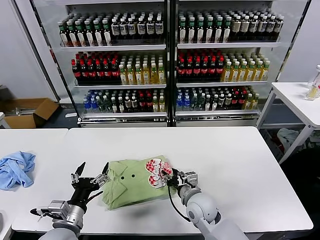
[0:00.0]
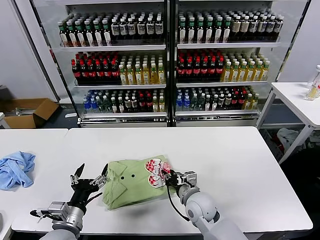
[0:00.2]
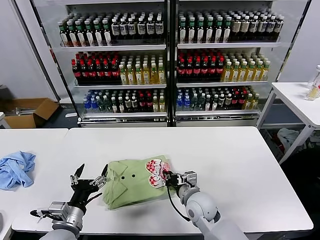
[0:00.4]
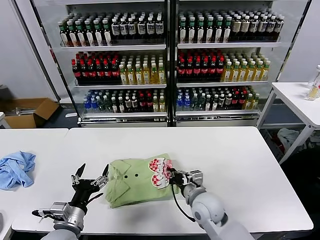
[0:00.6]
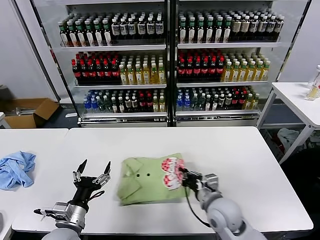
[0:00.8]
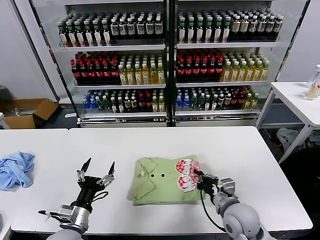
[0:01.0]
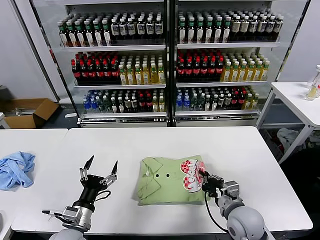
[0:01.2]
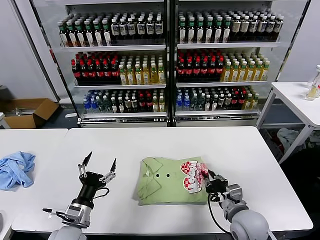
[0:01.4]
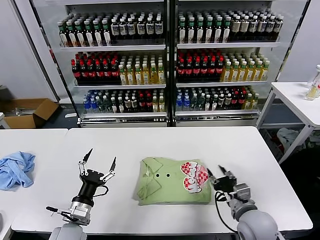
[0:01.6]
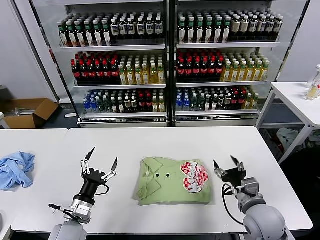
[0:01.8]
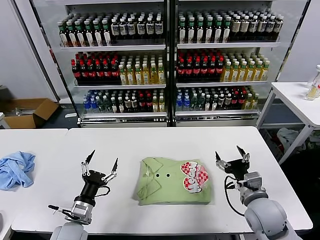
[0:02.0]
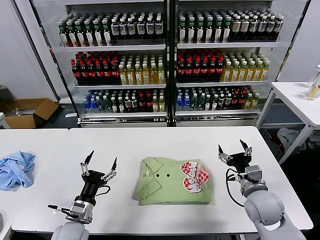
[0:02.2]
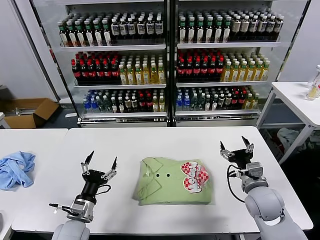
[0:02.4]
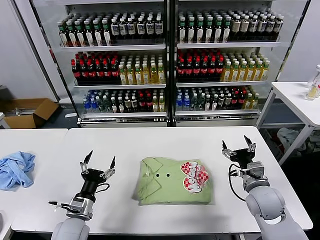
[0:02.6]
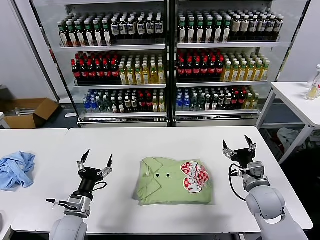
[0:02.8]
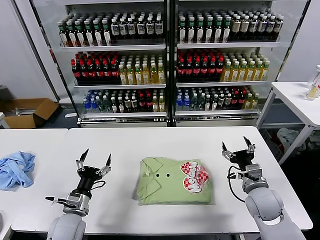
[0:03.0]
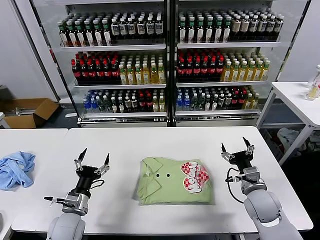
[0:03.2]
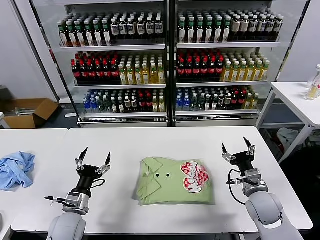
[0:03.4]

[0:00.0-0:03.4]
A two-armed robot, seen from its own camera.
Task of the whole recording: fold and organize the clothes.
Step, 0:00.0 to 0:01.6: Drag the clothes to the center of the table.
0:00.0 to 0:01.6: The right gripper goes roughly 15 cm to the right and backward, and closes, then reopens.
0:01.6 to 0:03.4: The right gripper goes roughly 10 cm forward and to the right, and opens.

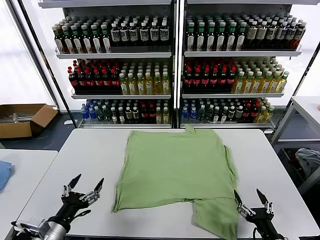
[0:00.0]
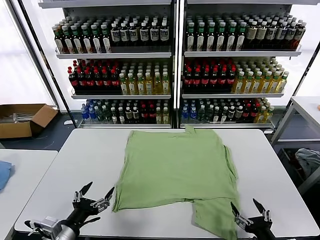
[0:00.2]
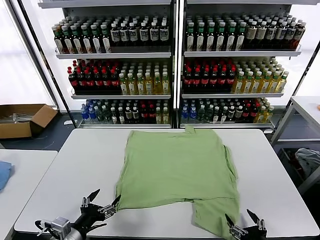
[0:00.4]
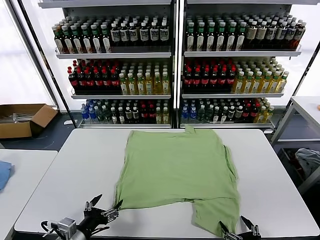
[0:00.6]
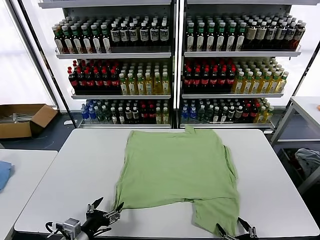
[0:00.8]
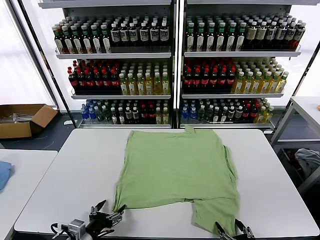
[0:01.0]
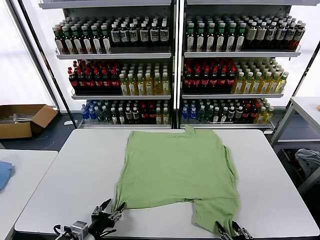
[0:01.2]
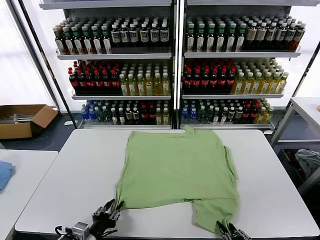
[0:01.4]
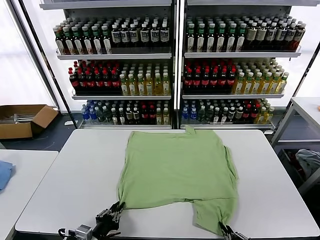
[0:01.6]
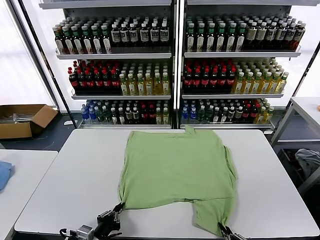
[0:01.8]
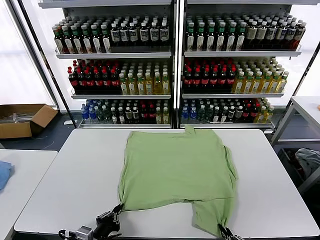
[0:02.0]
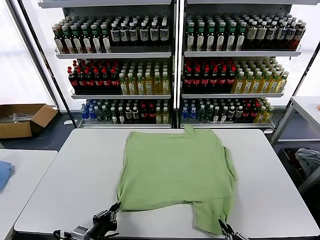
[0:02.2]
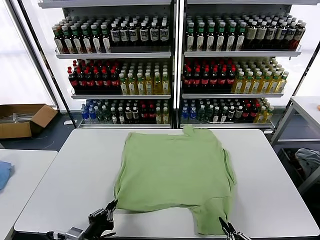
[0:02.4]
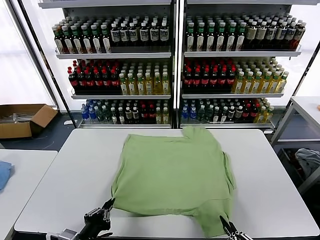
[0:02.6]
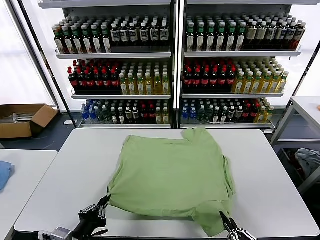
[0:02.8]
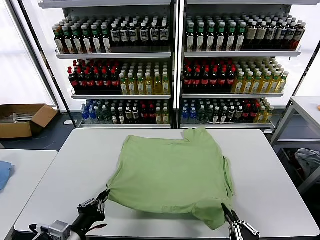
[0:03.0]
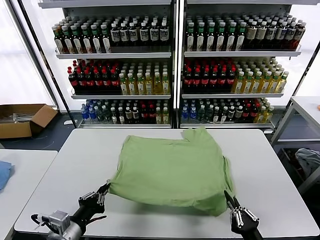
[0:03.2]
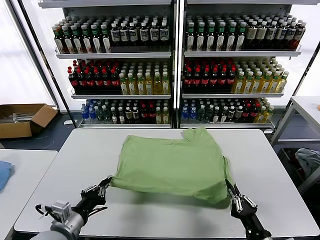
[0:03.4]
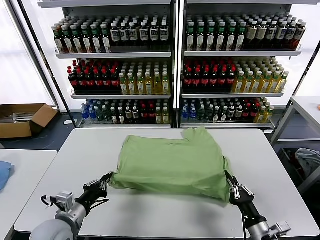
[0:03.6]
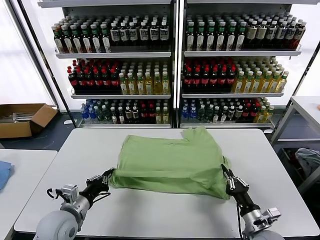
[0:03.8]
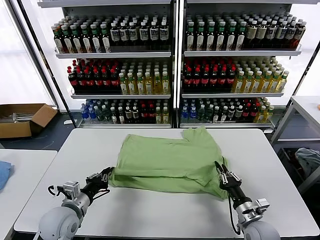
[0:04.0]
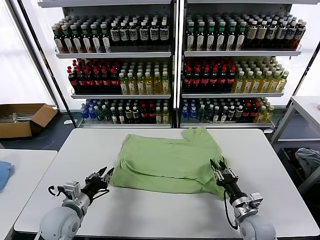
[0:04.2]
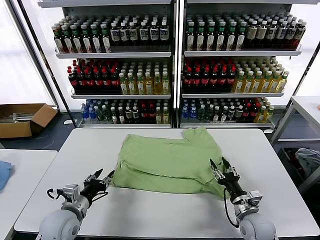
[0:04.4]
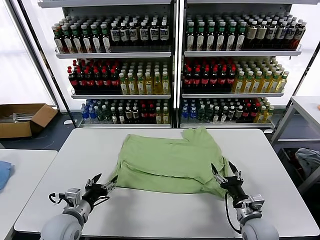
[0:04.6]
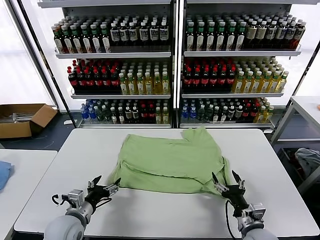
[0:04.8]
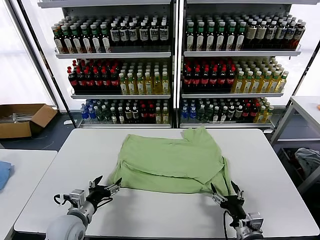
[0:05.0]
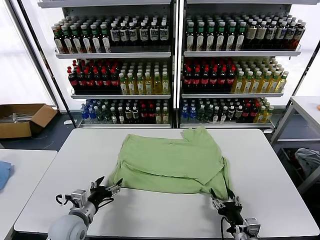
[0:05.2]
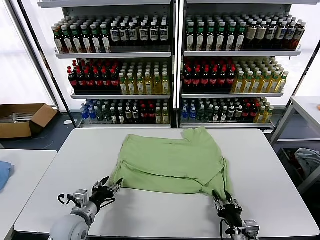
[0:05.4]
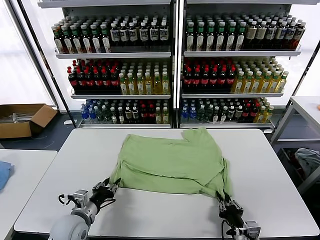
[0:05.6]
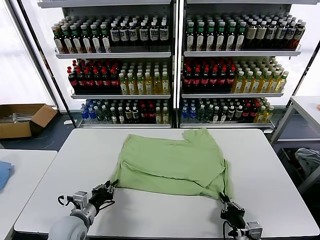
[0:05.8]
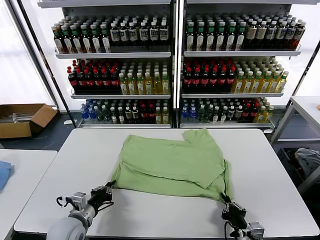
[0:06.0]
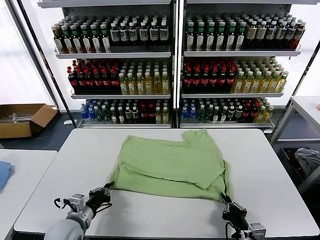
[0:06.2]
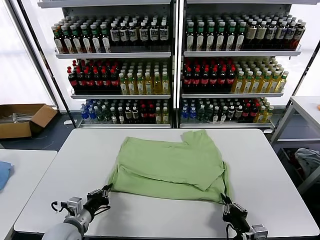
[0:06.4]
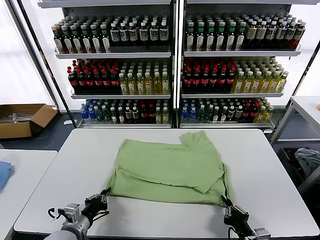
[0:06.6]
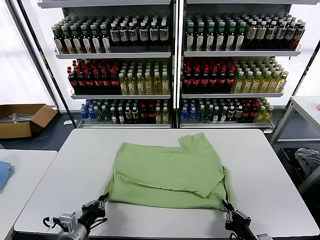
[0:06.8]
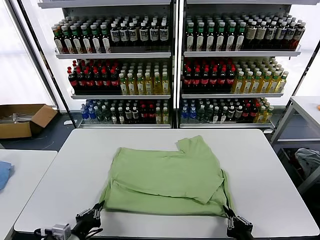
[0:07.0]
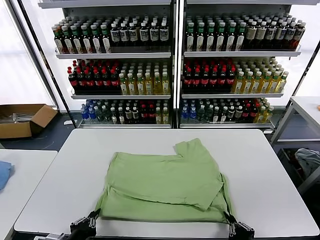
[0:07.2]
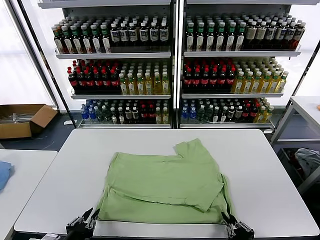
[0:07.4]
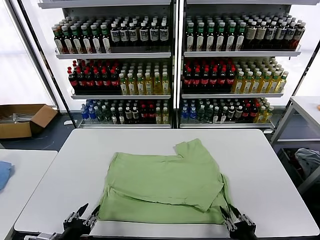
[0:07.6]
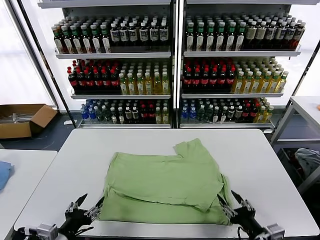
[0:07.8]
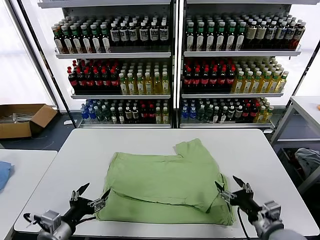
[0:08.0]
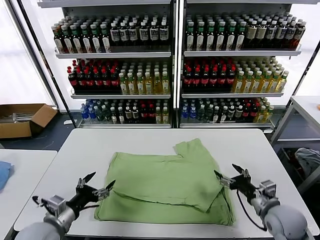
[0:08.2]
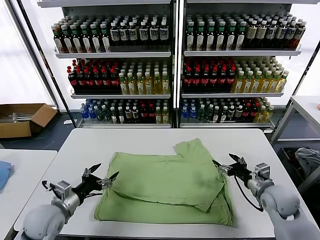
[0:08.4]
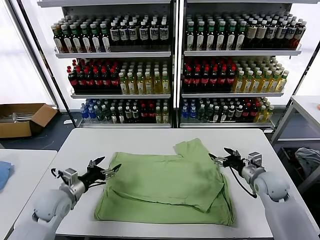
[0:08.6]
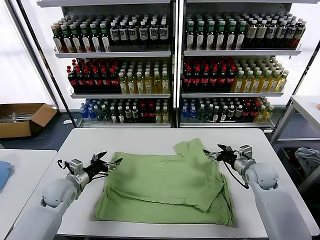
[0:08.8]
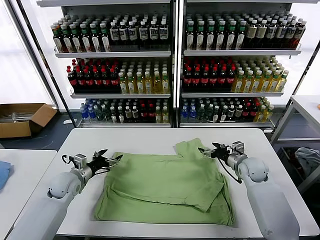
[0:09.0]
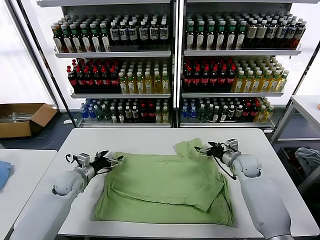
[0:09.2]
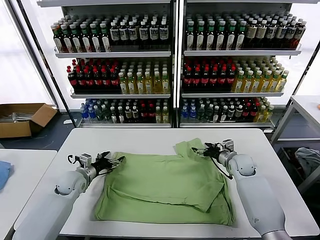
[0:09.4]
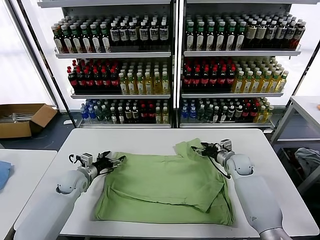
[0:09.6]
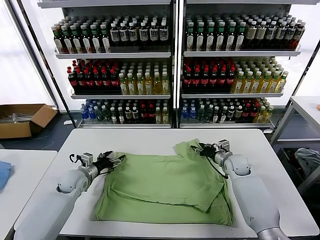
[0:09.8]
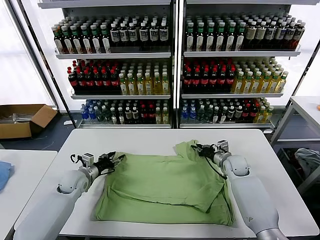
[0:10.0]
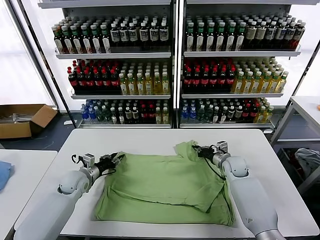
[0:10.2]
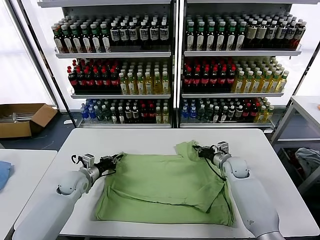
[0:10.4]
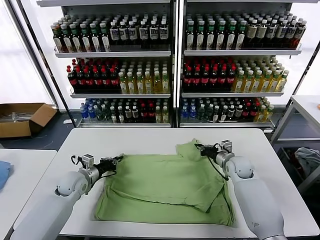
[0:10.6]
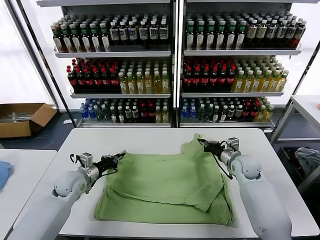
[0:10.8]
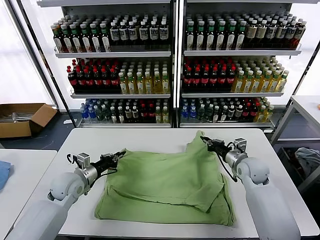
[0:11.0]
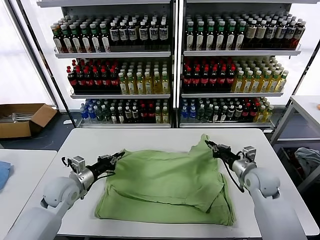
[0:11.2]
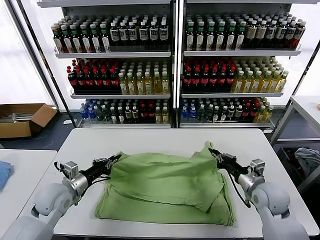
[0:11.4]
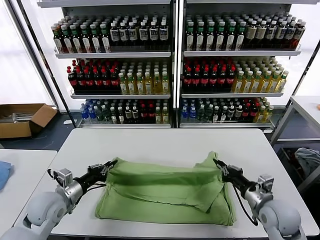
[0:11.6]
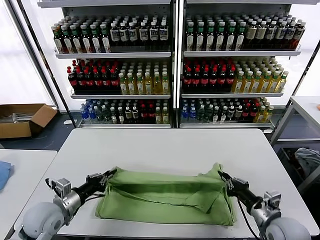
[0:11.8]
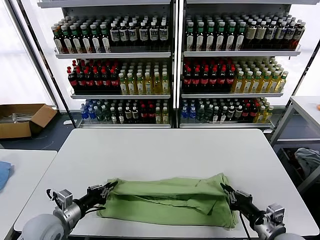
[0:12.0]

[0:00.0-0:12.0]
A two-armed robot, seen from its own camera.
Task of the whole recording: fold and organize the clothes.
Step, 0:00.0 to 0:01.6: use both grippers simultaneously to clamp the lower edge of the clothing fabric.
Step, 0:01.8 to 0:04.4: use both grippers to drag the lower edge of the fabric forward and fold it over the upper edge.
Step, 0:04.6 to 0:07.6: Drag the clothes downward with both gripper.
Step, 0:07.8 to 0:10.4: use both grippers simultaneously to clamp the upper edge of the clothing fabric.
0:01.6 to 0:03.0: The left gripper travels upward by approximately 10 cm.
0:03.0 to 0:04.4: The right gripper heads forward, covering approximately 20 cm, and opens its fingers. Meanwhile the left gripper travels forward by about 10 cm, and opens.
0:04.4 to 0:06.0: The left gripper closes up. The right gripper shifts some 10 cm backward, and closes its fingers.
0:06.0 to 0:07.6: The left gripper is displaced backward and upward by approximately 15 cm, and opens; the right gripper moves upward, some 5 cm, and opens.
0:07.6 to 0:09.0: The grippers both shift forward by about 30 cm. The left gripper opens up. The right gripper opens.
0:09.0 to 0:10.4: The right gripper closes its fingers. Meanwhile the left gripper closes up.
0:10.4 to 0:12.0: The left gripper heads backward, covering roughly 20 cm. The right gripper goes some 30 cm backward.

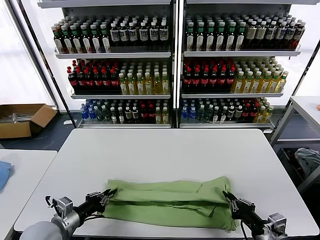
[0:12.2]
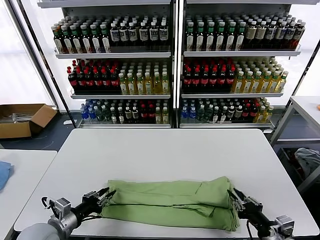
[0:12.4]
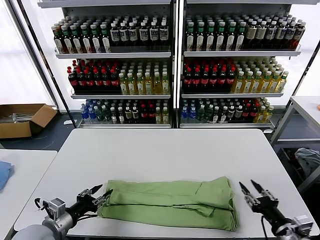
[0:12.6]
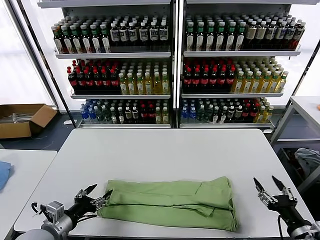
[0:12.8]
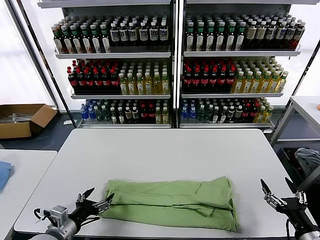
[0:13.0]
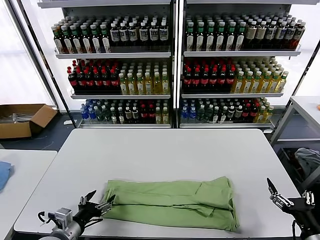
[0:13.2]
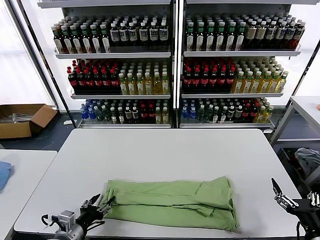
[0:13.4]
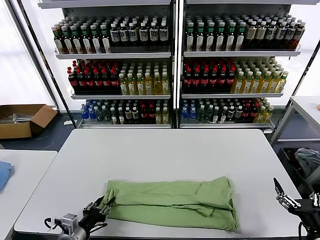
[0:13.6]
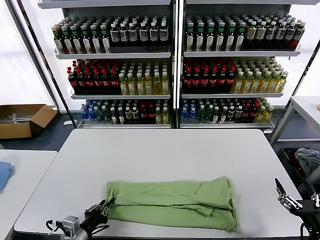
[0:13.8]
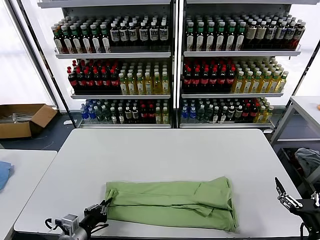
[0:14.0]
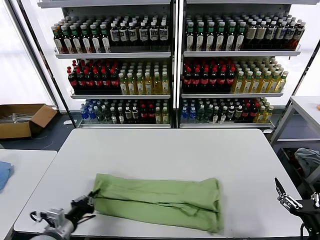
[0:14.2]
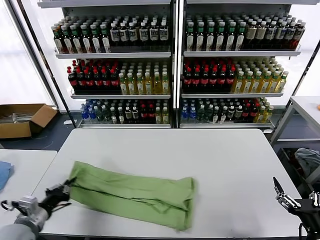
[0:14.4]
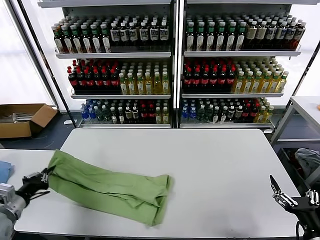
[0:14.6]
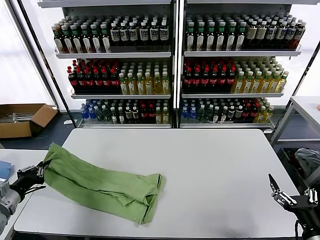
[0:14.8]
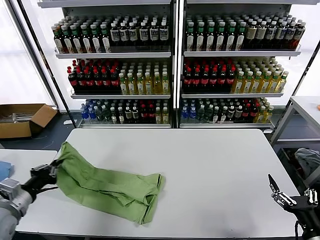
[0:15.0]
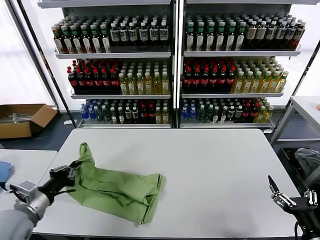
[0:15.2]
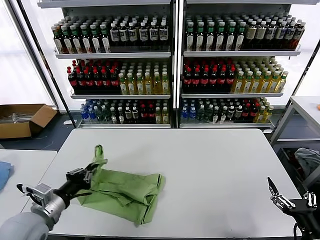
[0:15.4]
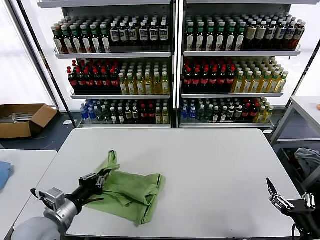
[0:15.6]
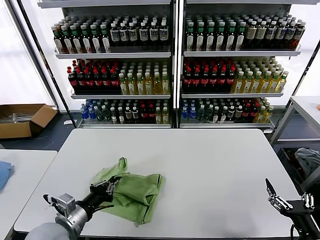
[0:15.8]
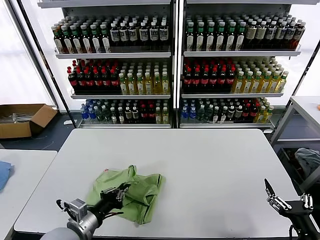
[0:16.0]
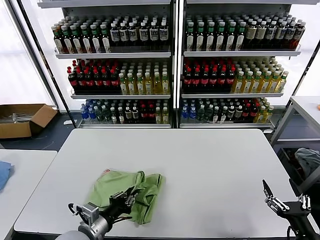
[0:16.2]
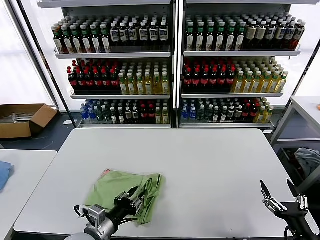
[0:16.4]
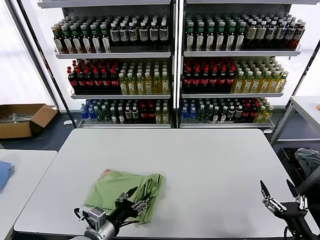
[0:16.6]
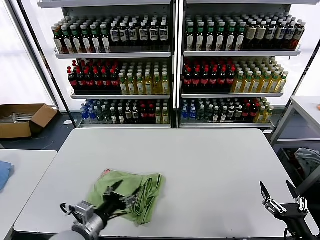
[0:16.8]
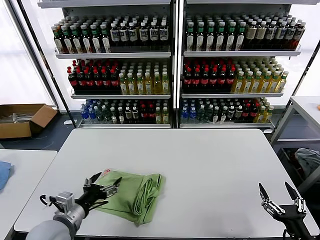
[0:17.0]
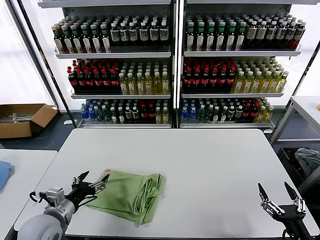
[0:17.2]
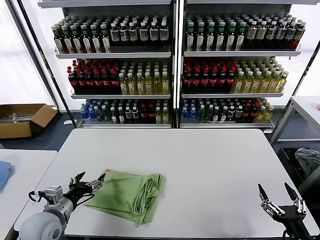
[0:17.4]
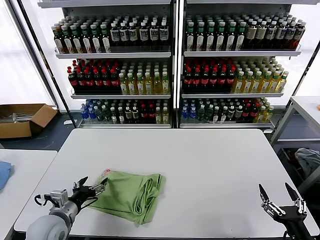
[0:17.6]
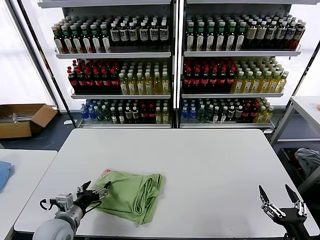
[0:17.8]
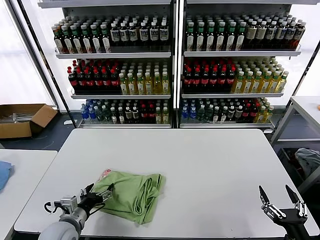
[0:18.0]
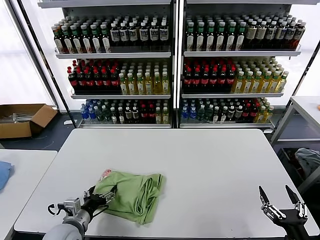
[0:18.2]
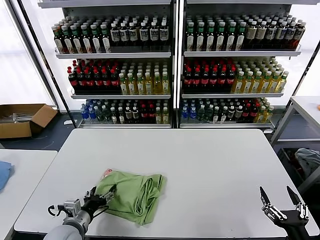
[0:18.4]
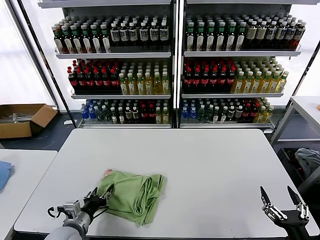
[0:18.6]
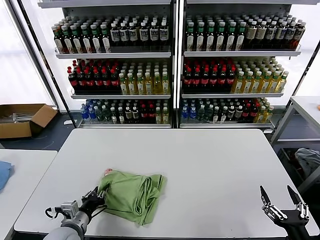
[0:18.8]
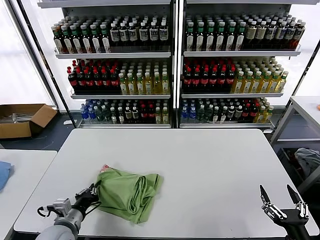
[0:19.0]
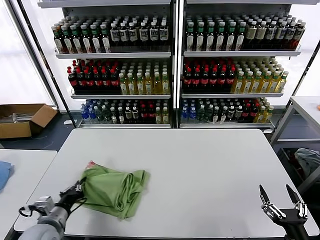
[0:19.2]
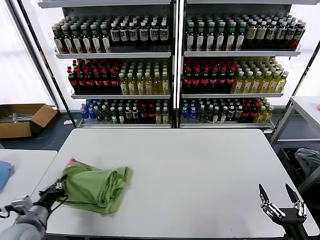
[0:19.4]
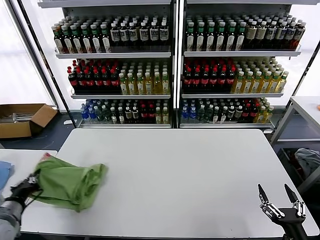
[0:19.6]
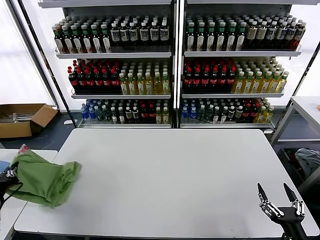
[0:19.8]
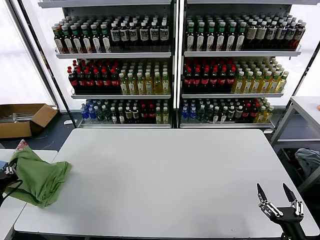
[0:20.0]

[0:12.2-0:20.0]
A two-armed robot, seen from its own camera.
Task of the whole recording: fold and organize the clothes.
Step, 0:12.8 to 0:14.0: use the left gripper to clamp the left edge of the fabric.
Step, 0:14.2 to 0:16.6: use the left gripper to drag the left edge of the fabric to the left and folds it over the right edge.
0:12.2 to 0:13.8: The right gripper is displaced to the right and backward by about 10 cm, and opens; the left gripper shifts by roughly 10 cm, and opens, then closes again.
0:13.8 to 0:15.4: The left gripper is displaced upward by about 10 cm, and travels to the left and back again, some 20 cm each way.
0:15.4 to 0:16.8: The left gripper moves to the right, about 10 cm, and opens its fingers.
0:16.8 to 0:18.4: The left gripper is displaced downward and to the left by roughly 10 cm.
0:18.4 to 0:20.0: The left gripper moves to the left and upward, about 20 cm, and closes up.
